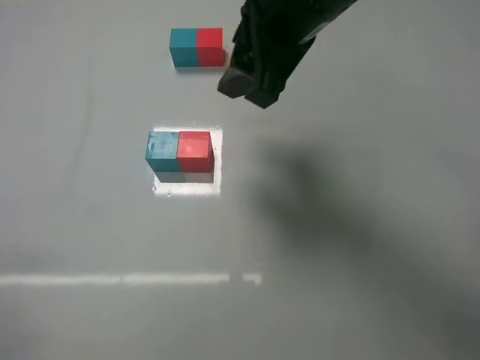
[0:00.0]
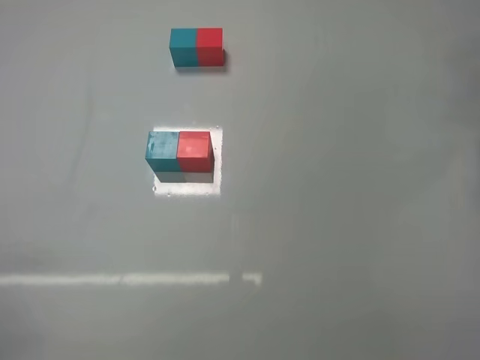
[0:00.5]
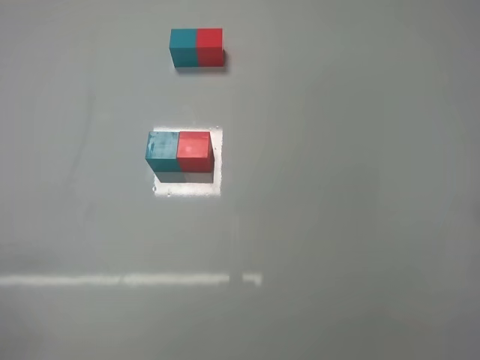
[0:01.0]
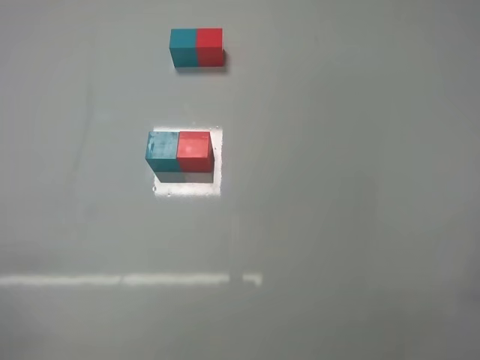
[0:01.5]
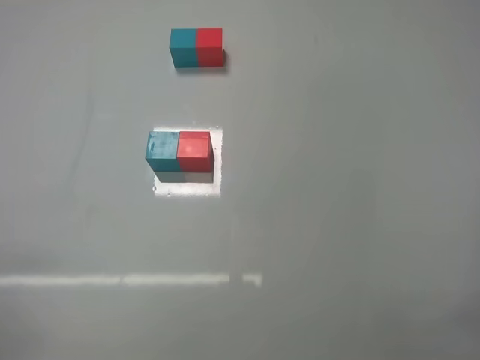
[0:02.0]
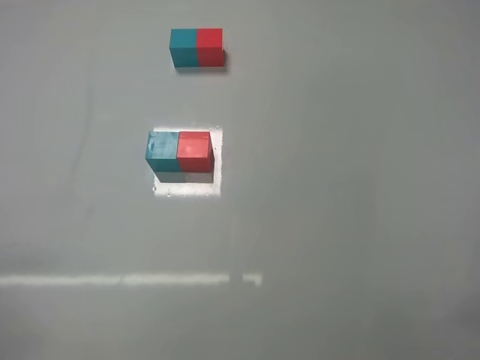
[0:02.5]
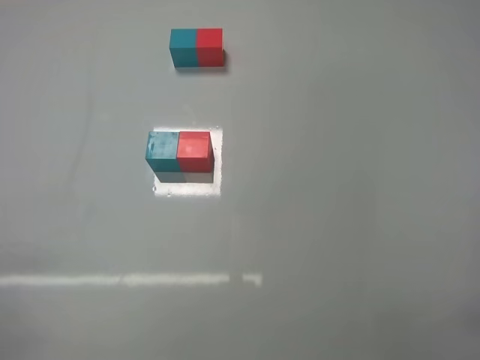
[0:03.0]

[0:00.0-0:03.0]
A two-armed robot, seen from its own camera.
Task of the whole recording: According to the building block template in front, assemble the scattered blocks together.
0:00.0 to 0:01.5: The right gripper heads backward, to the right and downward, covering about 35 cm.
